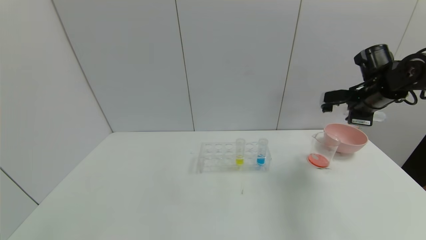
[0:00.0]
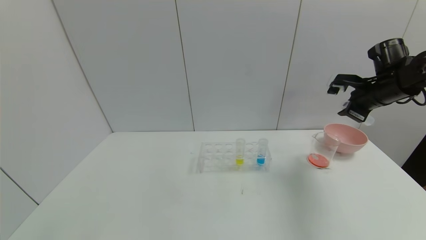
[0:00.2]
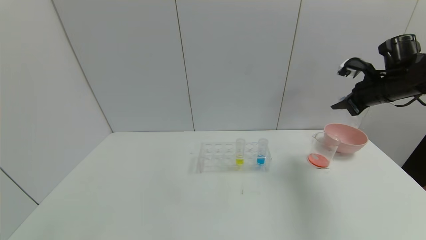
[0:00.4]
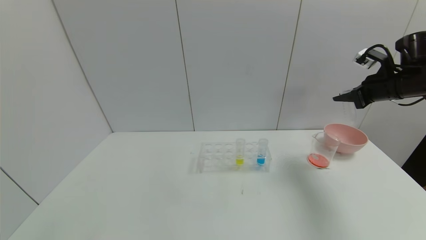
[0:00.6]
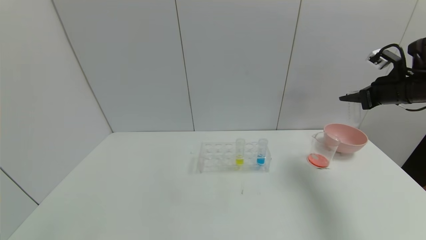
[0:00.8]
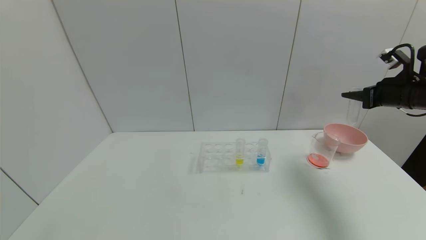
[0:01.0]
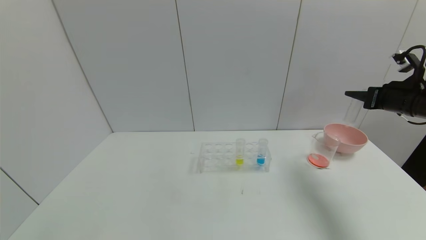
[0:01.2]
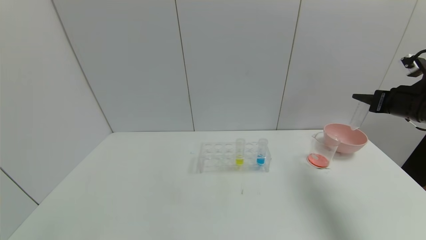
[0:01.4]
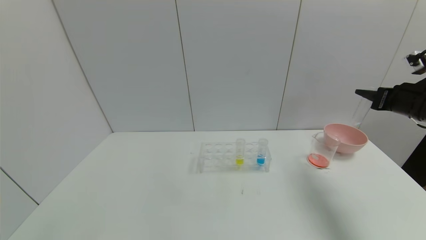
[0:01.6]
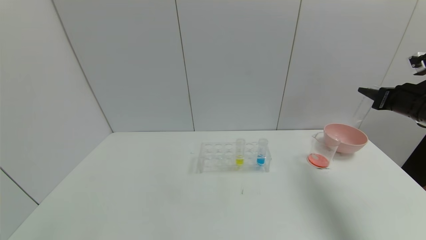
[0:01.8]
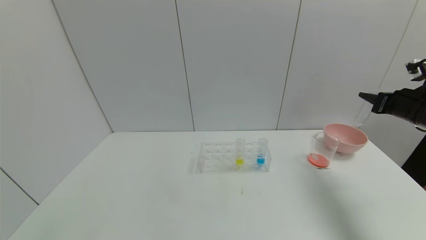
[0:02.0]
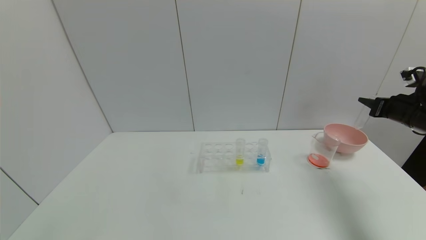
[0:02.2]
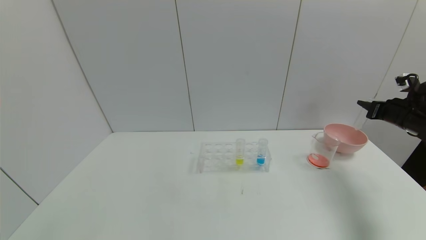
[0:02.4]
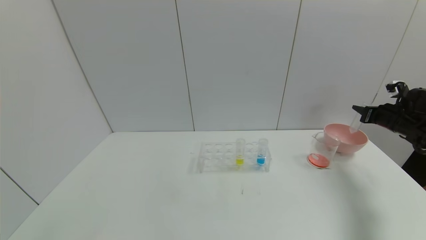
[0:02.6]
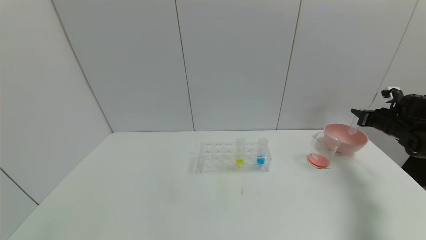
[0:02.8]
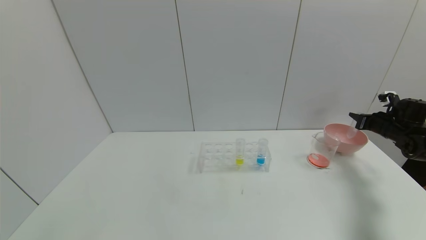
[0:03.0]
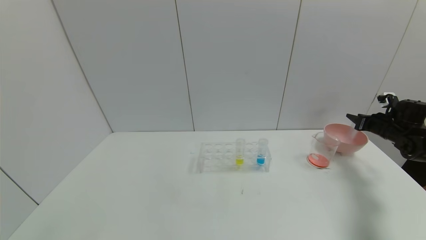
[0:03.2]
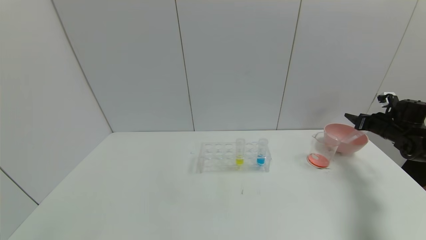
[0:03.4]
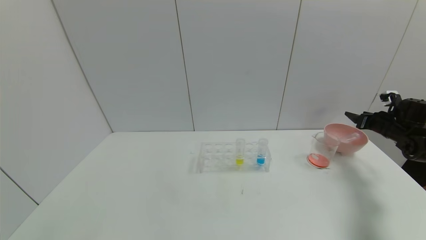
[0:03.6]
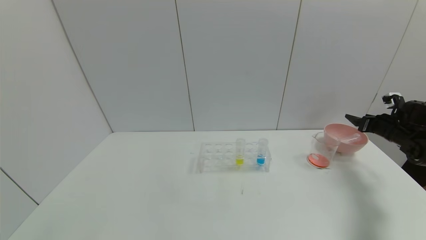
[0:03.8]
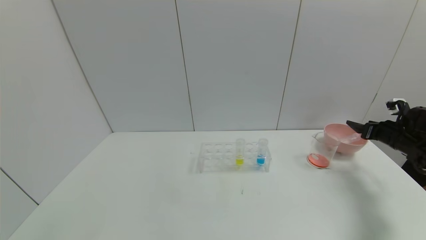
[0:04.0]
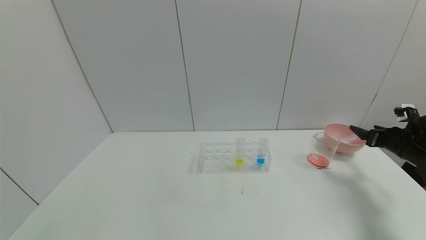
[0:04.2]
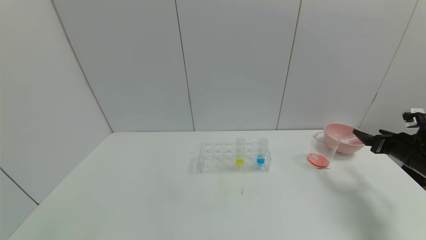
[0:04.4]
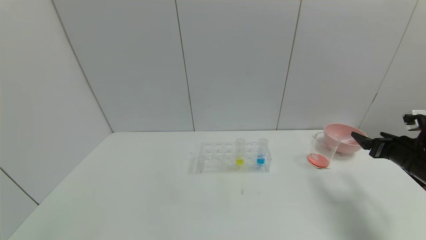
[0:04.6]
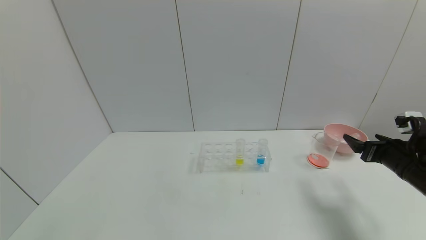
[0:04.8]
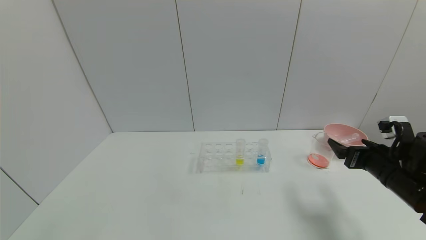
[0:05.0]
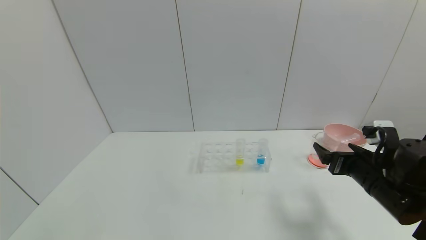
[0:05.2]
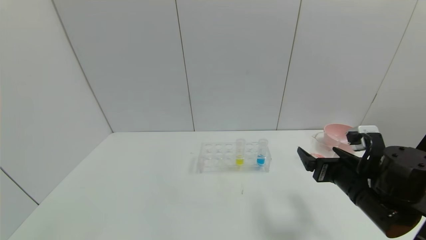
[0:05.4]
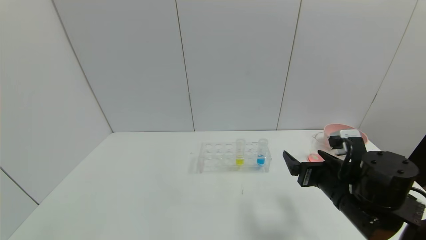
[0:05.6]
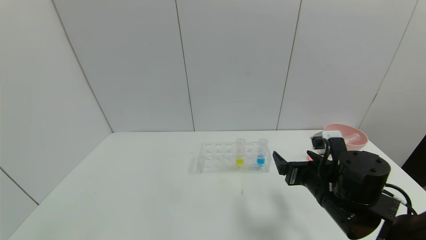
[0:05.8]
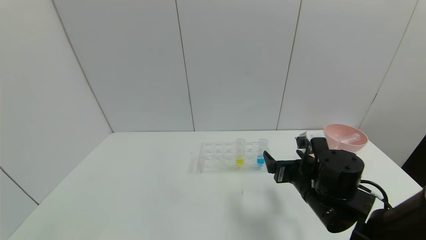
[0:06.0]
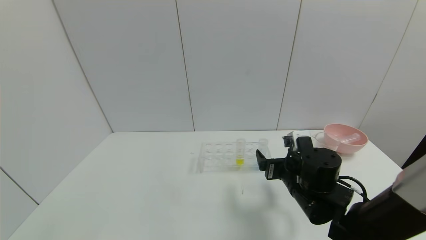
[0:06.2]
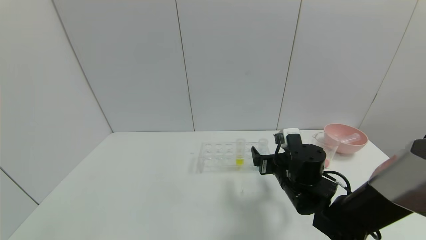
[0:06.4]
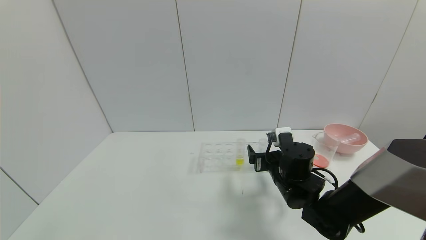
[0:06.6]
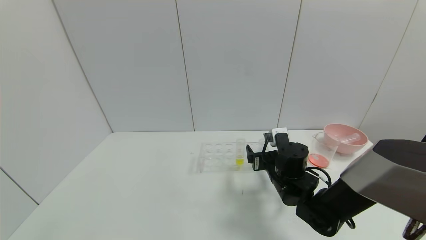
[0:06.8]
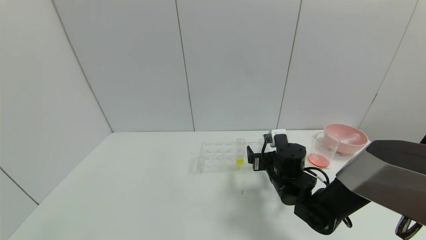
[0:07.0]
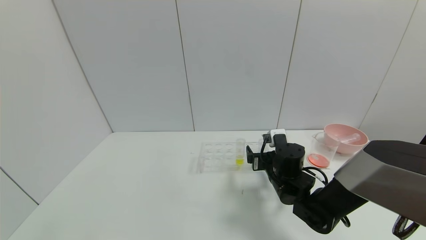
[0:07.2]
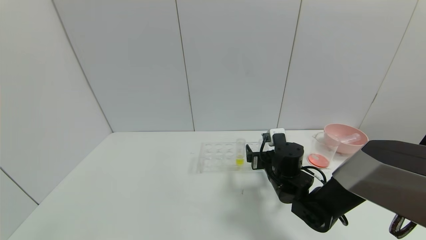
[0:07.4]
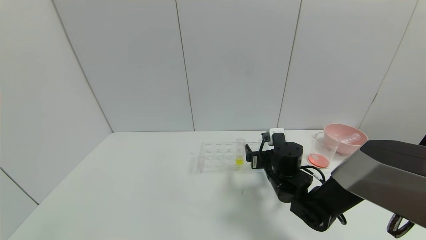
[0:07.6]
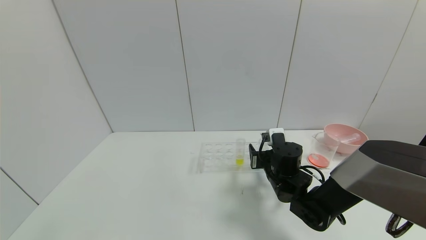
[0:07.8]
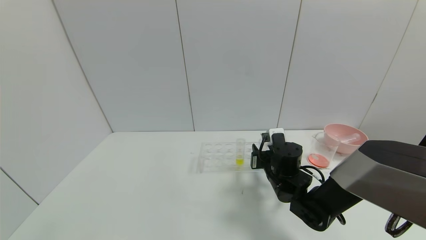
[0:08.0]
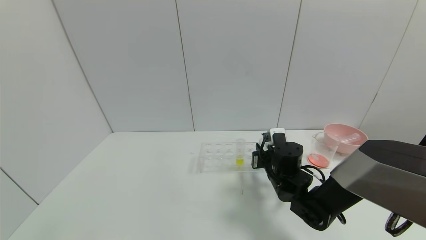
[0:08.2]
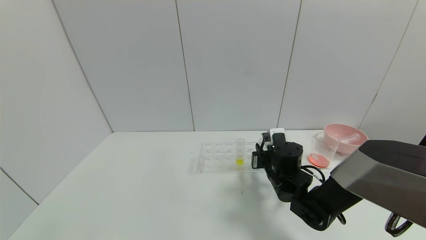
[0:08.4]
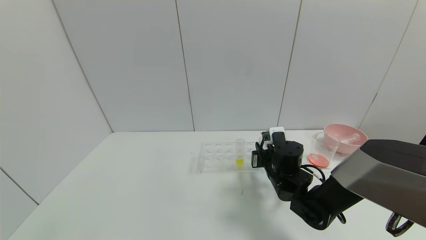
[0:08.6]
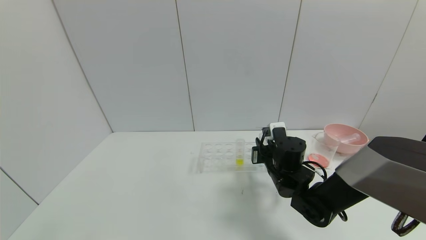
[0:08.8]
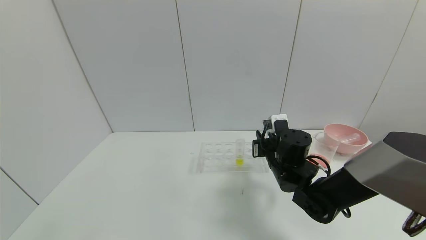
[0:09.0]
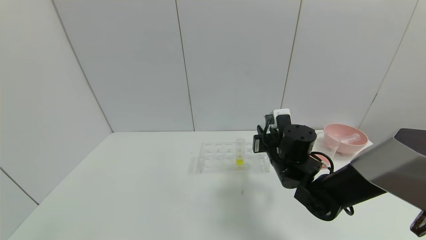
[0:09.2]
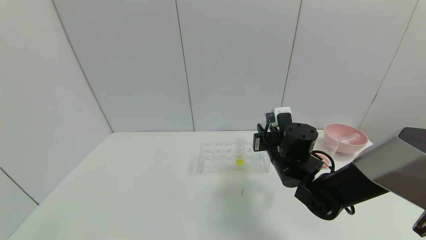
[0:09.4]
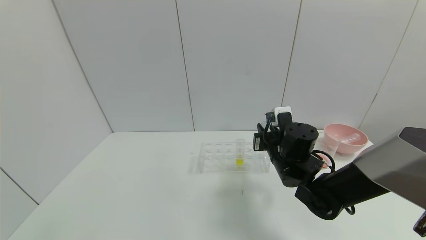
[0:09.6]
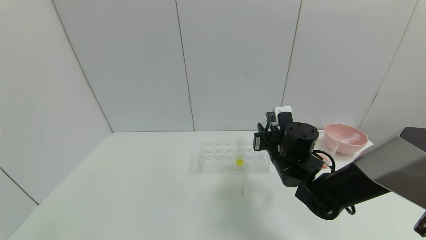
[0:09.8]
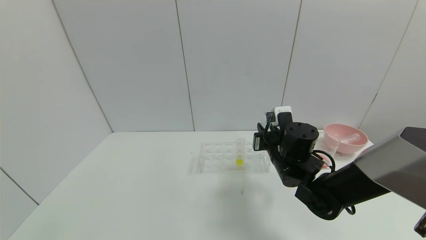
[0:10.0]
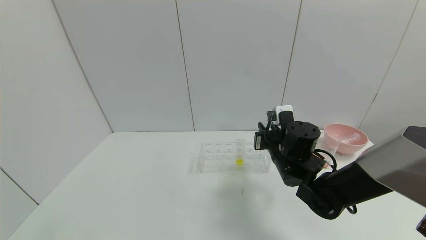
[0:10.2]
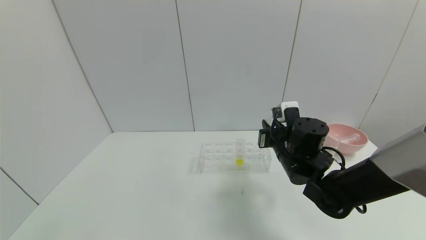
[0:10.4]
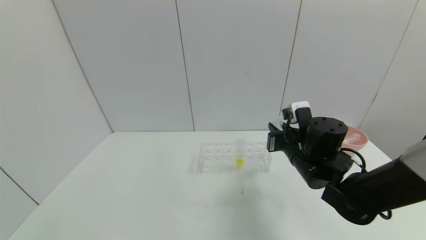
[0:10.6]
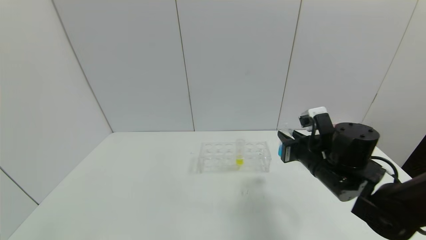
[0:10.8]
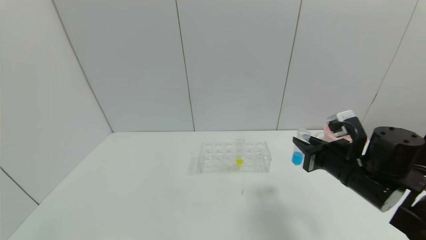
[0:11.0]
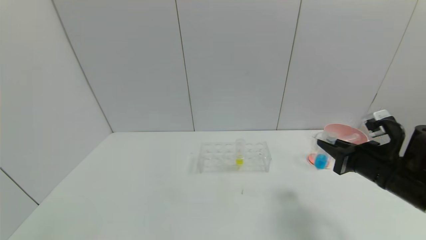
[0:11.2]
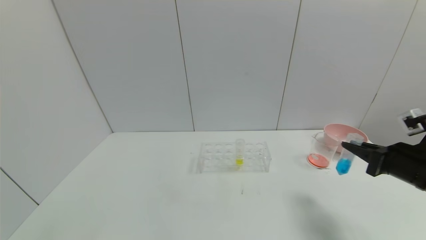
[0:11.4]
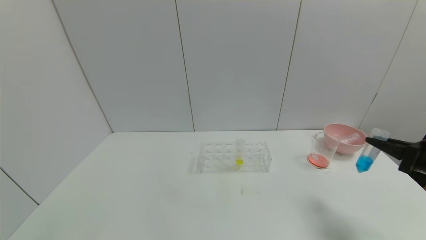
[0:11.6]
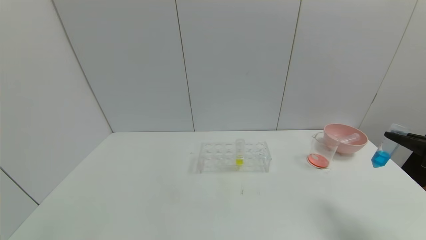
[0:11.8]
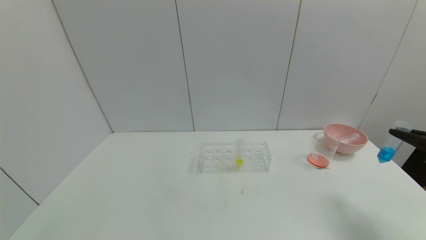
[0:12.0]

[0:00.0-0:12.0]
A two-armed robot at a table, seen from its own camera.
Task of the whole recording: pick up the test tube with red pigment and the test tube with blue pigment by grippers and pour them into the container.
Step, 0:00.0 to 0:03.6: Place the test tube into the bowl with the right gripper.
Step, 0:03.8 to 0:08.2: Grasp the blue reagent with the right gripper.
0:00.0 to 0:01.6: The right gripper shifts approximately 10 cm backward and to the right.
0:01.6 to 0:03.0: The right gripper moves downward, forward and to the right, roughly 20 cm.
0:03.0 to 0:04.4: The right gripper moves backward, about 10 cm, and opens.
0:04.4 to 0:06.0: The right gripper shifts roughly 30 cm to the left.
0:06.0 to 0:07.6: The right gripper is displaced forward by some 10 cm.
0:07.6 to 0:09.0: The right gripper closes up.
0:09.0 to 0:10.4: The grippers move only a little.
0:10.4 to 0:12.0: The right gripper heads to the right, covering some 30 cm.

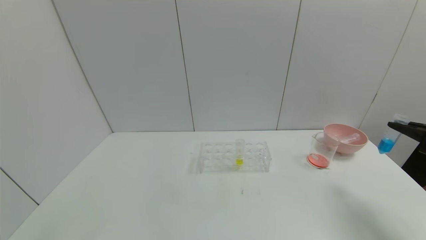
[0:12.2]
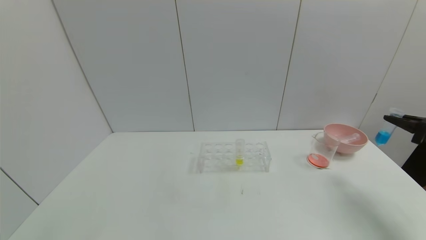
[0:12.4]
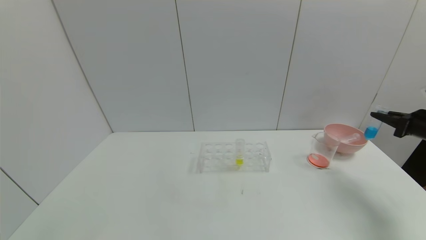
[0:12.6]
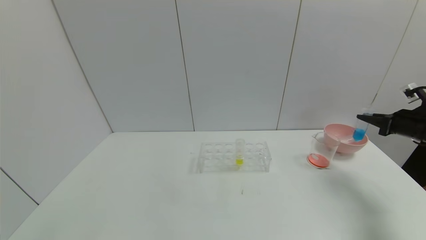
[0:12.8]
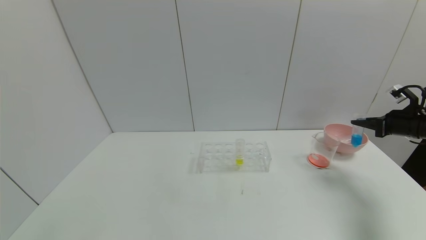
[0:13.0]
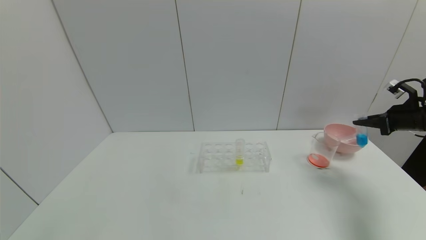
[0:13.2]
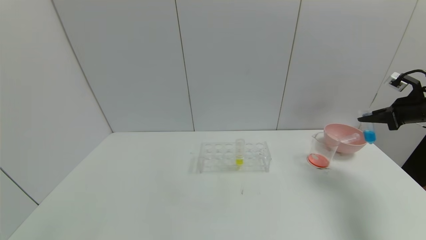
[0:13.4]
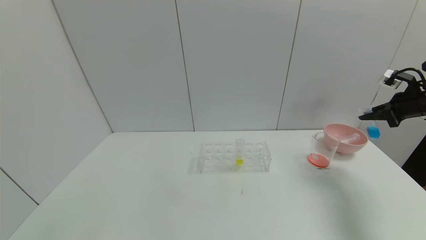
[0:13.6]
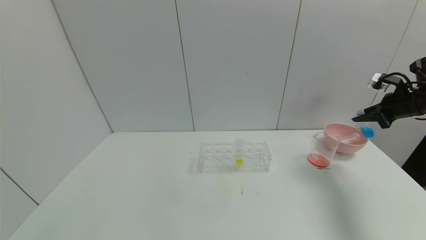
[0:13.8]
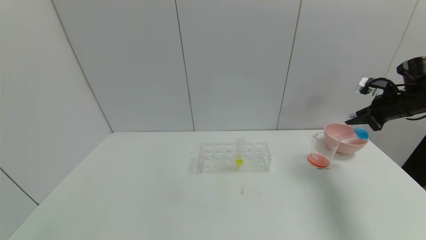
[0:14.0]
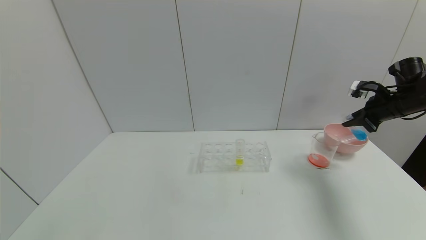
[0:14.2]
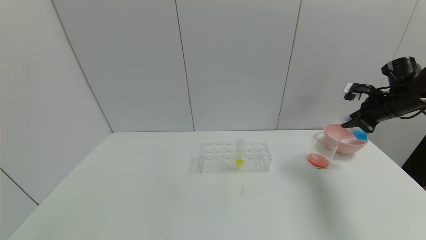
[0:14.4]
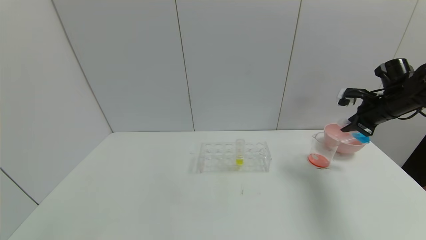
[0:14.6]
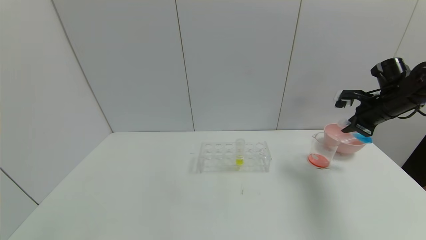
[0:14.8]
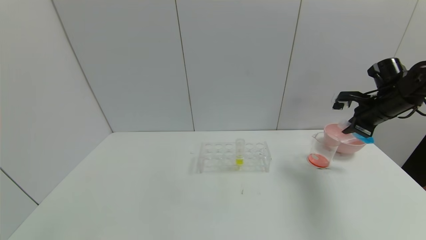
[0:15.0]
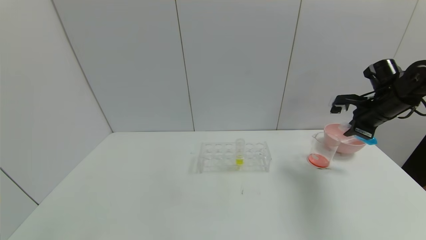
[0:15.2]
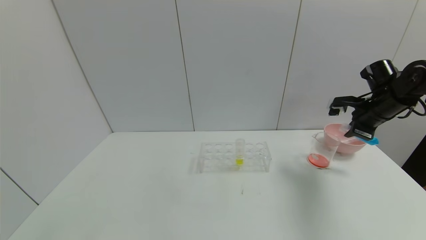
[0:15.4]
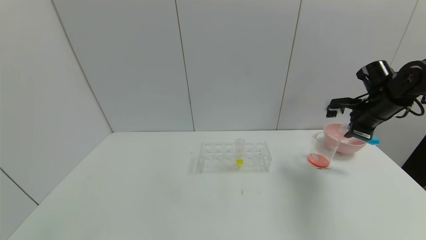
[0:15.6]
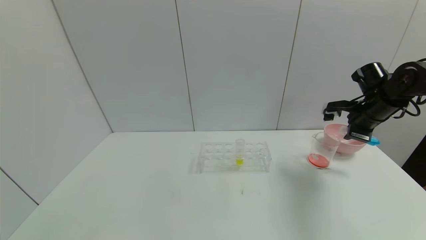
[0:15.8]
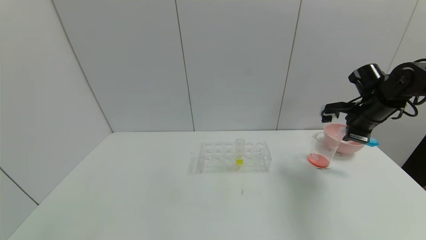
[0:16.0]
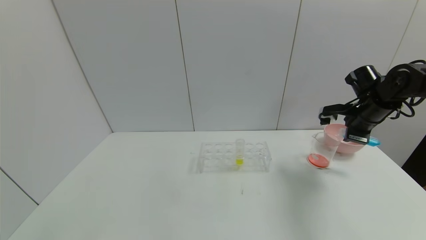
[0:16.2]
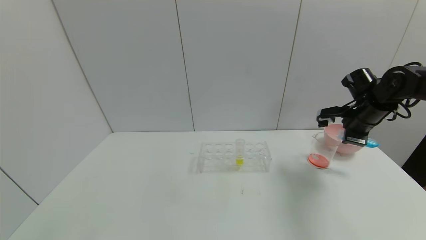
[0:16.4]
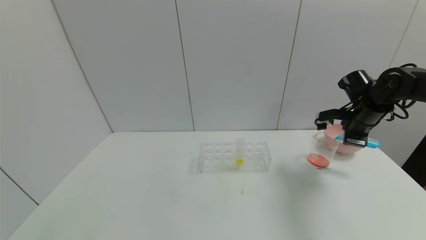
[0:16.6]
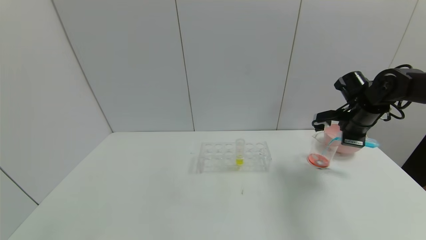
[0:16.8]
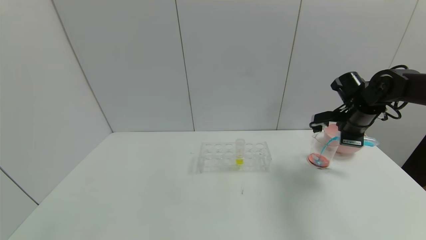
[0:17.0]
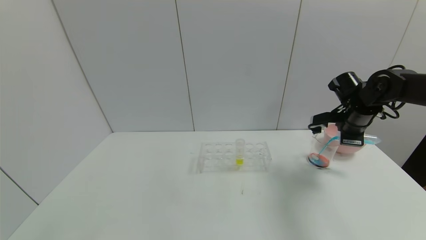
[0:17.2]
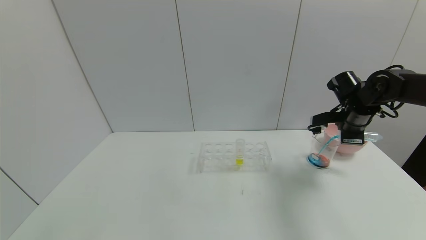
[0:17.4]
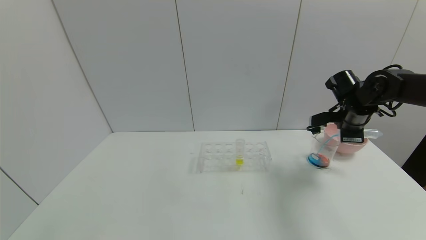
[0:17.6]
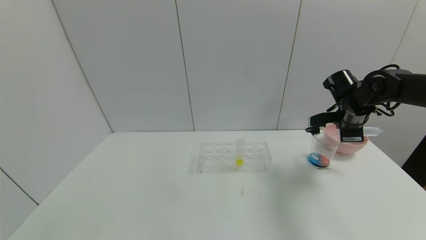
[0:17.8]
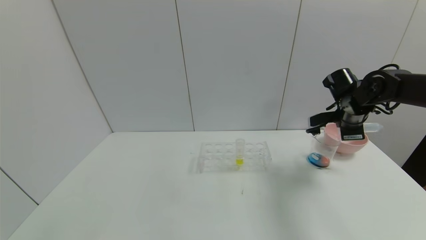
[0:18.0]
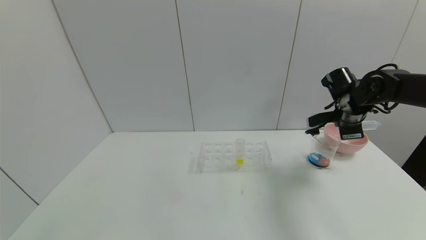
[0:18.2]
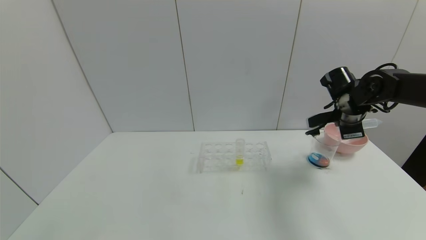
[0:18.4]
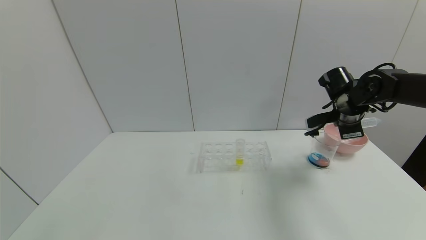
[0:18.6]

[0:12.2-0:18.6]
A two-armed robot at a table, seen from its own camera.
Task of the whole recording: pick up the test tube with red pigment and the test tube with blue pigment by grippers and pour them into the container.
Step, 0:12.2 to 0:18.0: Pour the blue reagent into the graduated cylinder with the right gripper.
0:12.2 to 0:13.8: The right gripper is displaced forward by some 15 cm.
0:13.8 to 0:15.4: The right gripper moves to the left, roughly 10 cm.
0:15.4 to 0:17.0: The right gripper moves about 5 cm.
